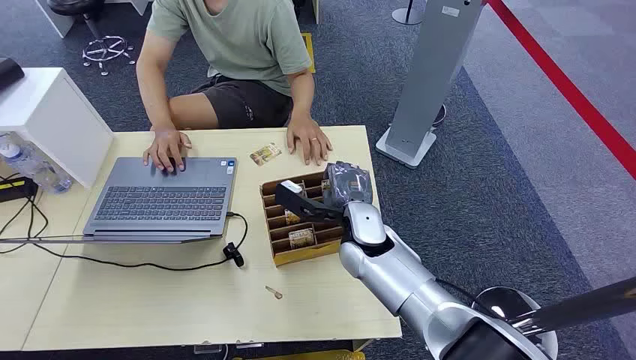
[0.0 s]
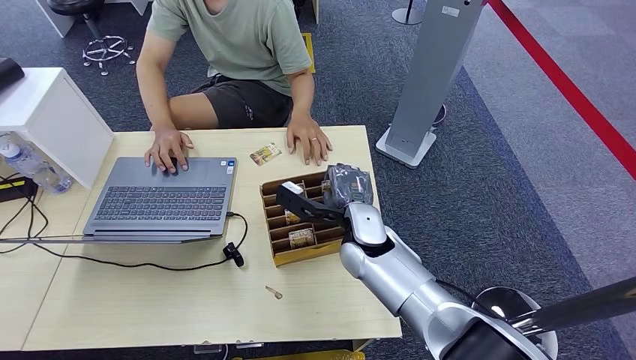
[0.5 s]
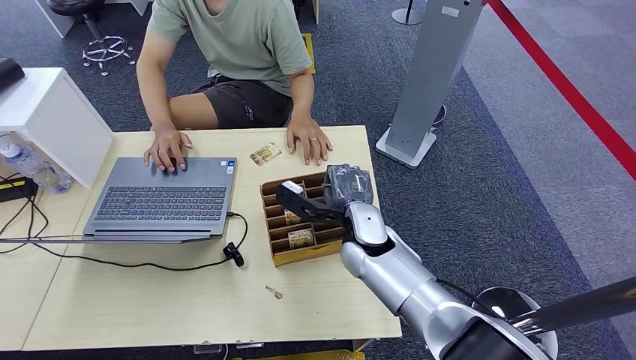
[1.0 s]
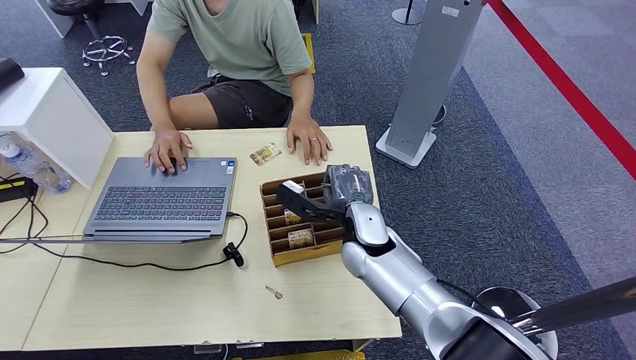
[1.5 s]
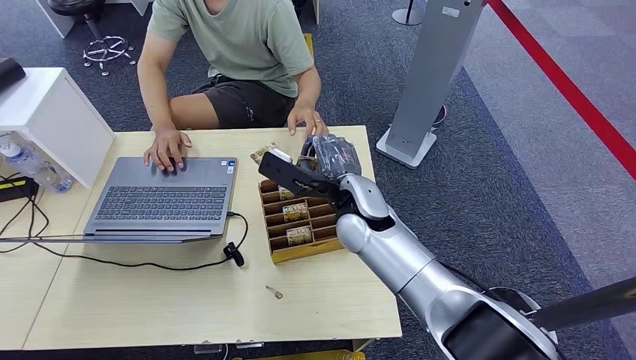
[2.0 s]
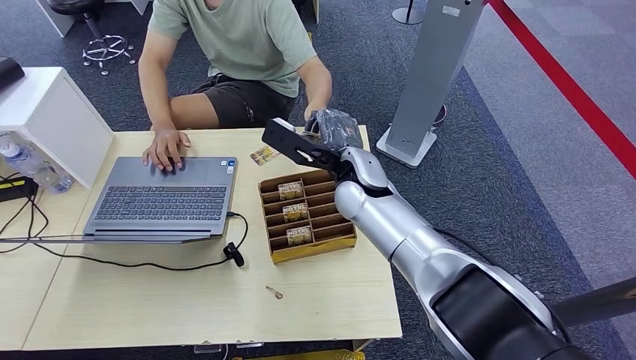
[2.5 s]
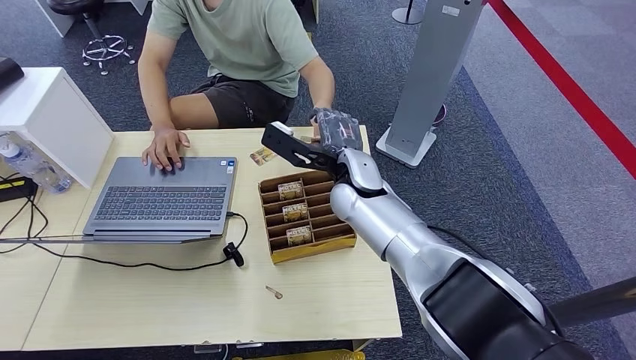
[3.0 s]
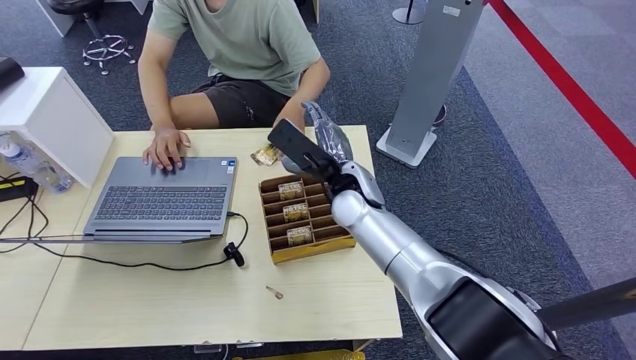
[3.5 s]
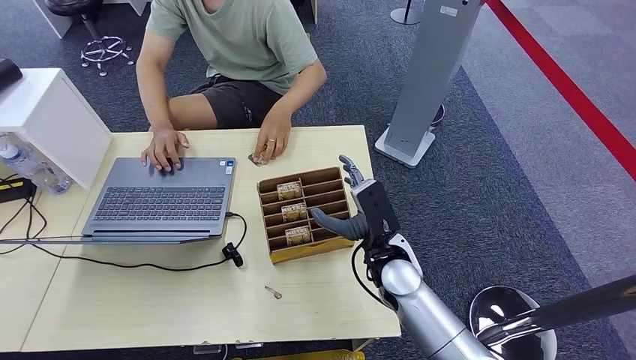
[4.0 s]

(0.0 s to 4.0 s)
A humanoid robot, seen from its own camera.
Step, 2.5 s - 4.0 s: Hand the room card to the target.
2.0 s - 4.0 s: The right hand is displaced downward, backward and to the right by some 10 cm.
